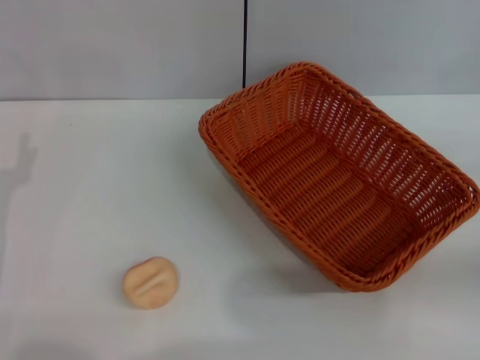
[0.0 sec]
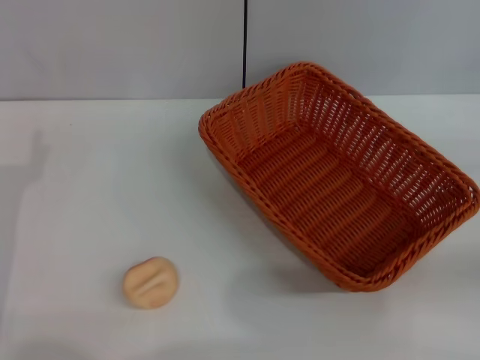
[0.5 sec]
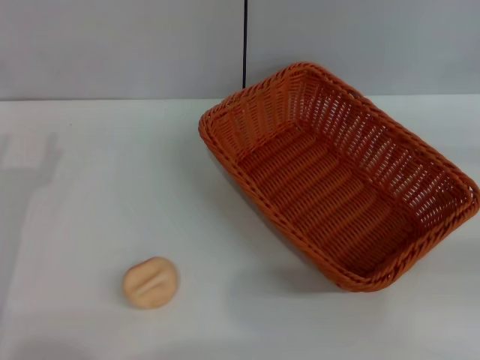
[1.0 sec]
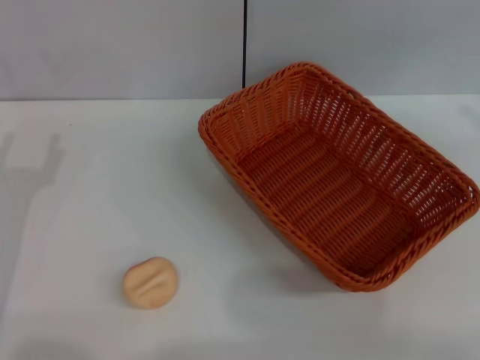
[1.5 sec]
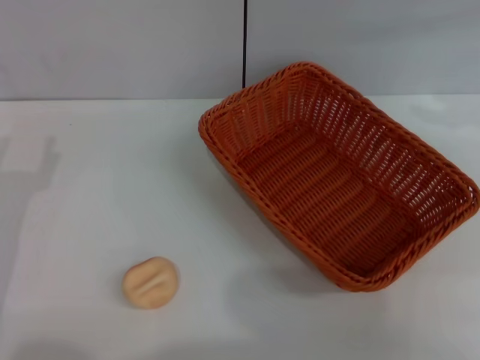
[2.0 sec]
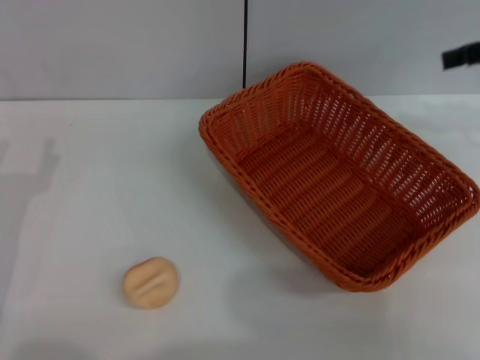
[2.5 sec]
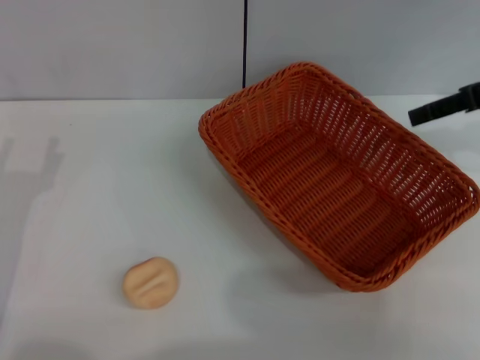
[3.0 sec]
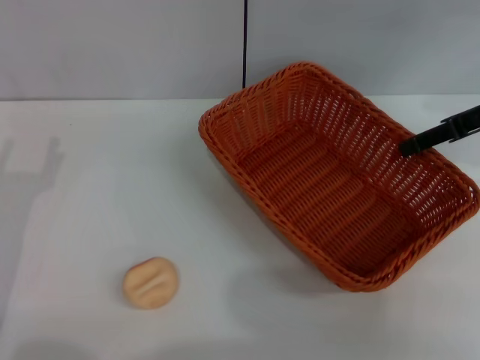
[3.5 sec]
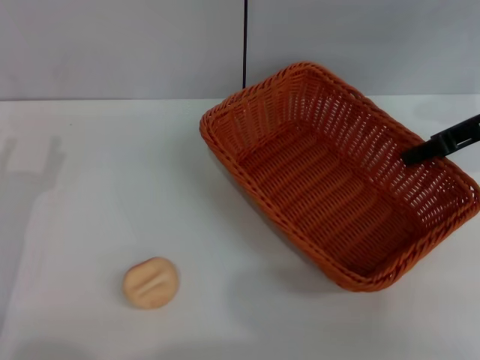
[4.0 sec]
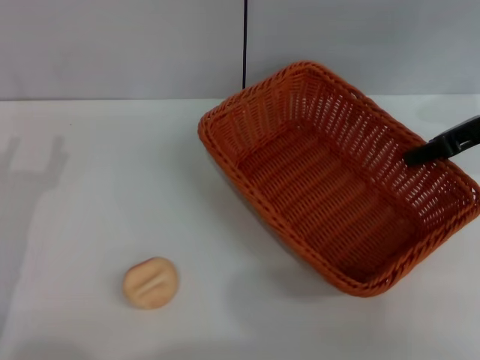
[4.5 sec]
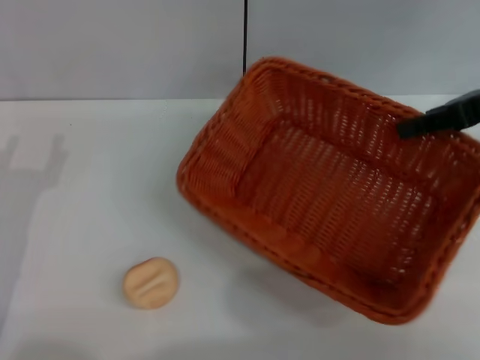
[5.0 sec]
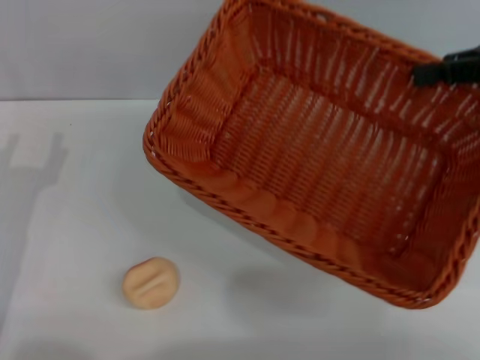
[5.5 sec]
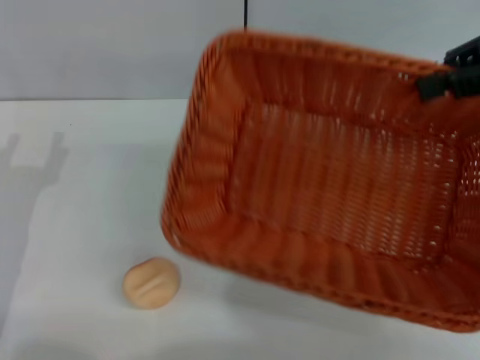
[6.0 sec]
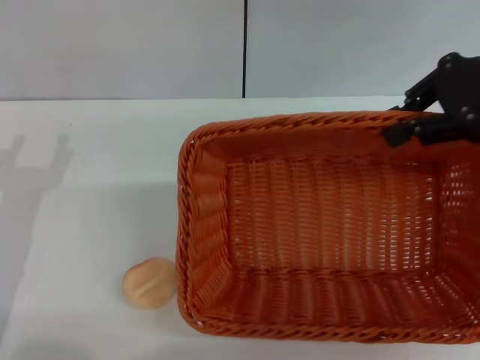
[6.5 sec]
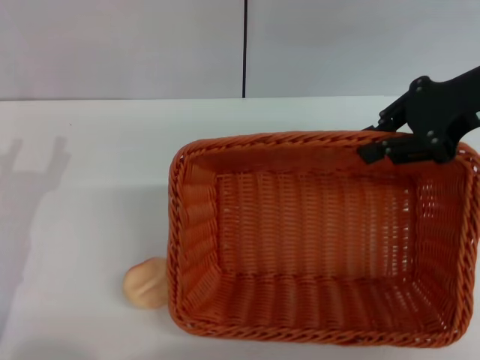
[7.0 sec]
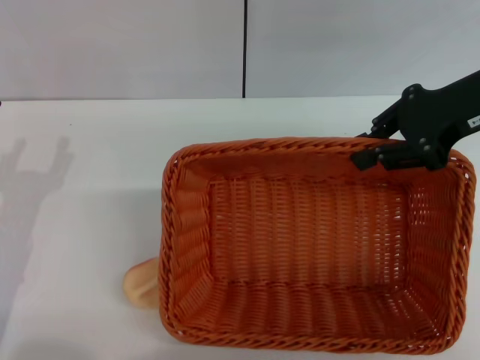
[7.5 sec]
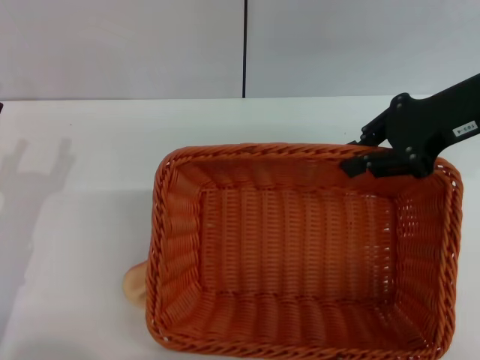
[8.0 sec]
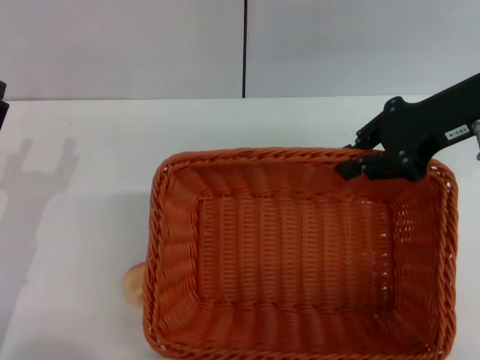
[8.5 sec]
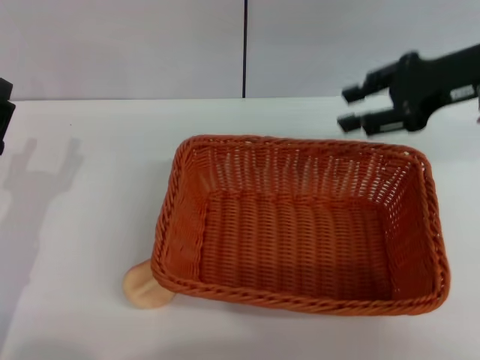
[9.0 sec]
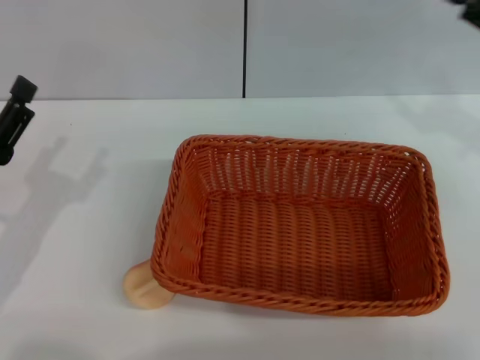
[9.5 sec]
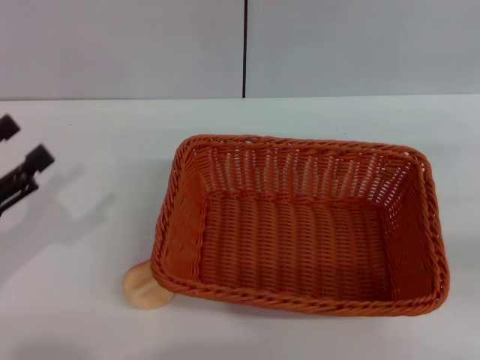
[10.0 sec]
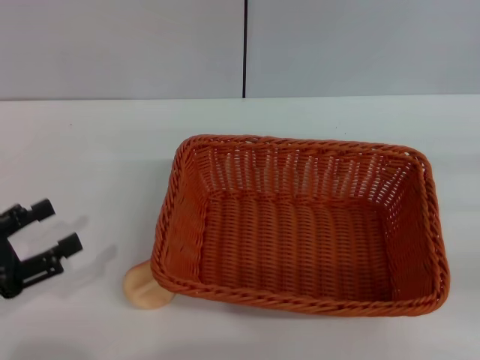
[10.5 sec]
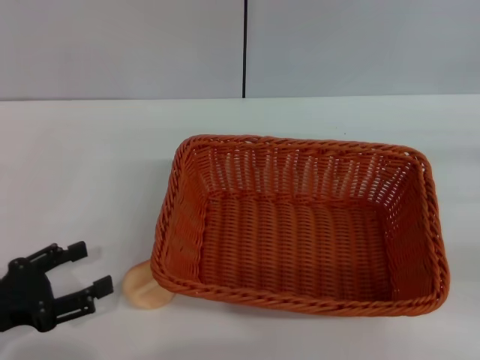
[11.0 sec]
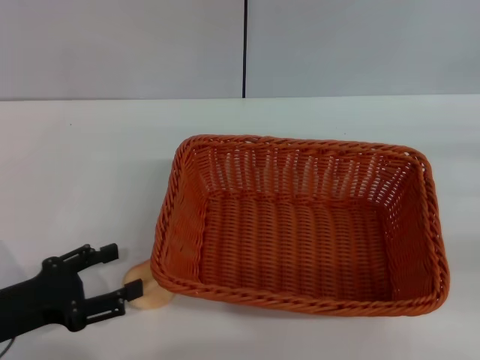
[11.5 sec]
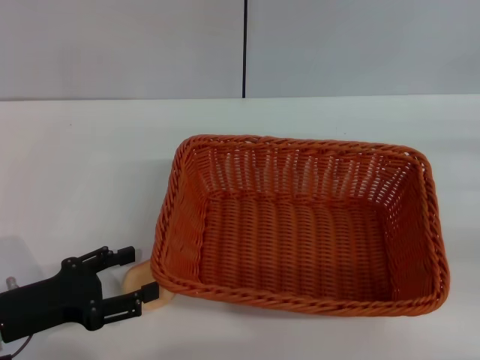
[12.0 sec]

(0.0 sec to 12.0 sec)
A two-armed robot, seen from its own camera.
Step, 0.0 sec - 9.0 sec: Move the basket to the center of view with the right gripper.
0.0 sec - 2.0 sec: The right gripper is displaced upward and forward by roughly 25 cm.
2.0 sec - 4.0 sec: The right gripper travels downward and to the left by some 15 cm, and closes its fingers.
4.0 sec - 6.0 sec: The right gripper shifts some 10 cm upward, and closes its fingers.
6.0 sec - 8.0 sec: The right gripper moves downward and to the left, about 10 cm.
8.0 sec - 10.0 sec: The right gripper heads to the right, backward and downward, covering some 20 cm, and opens. Meanwhile the left gripper goes some 5 cm to the left.
10.0 sec - 12.0 sec: The left gripper shifts approximately 5 cm downward.

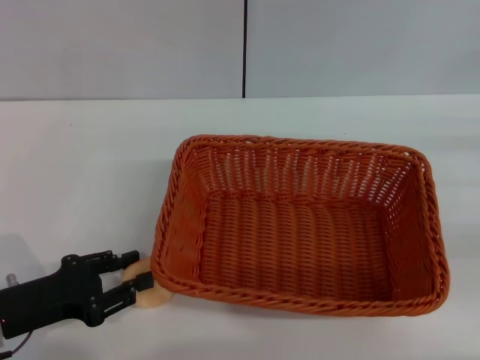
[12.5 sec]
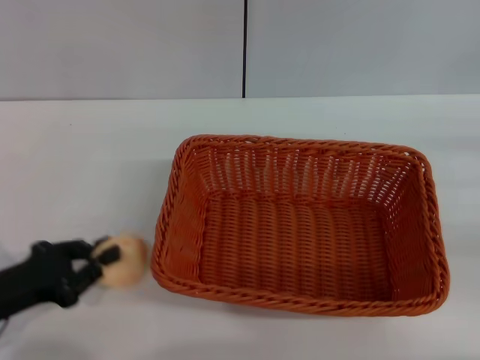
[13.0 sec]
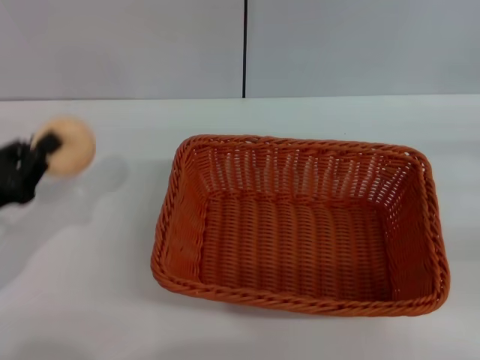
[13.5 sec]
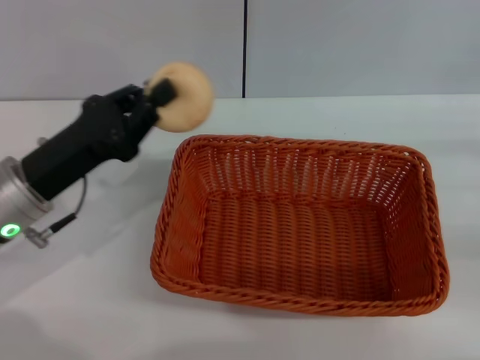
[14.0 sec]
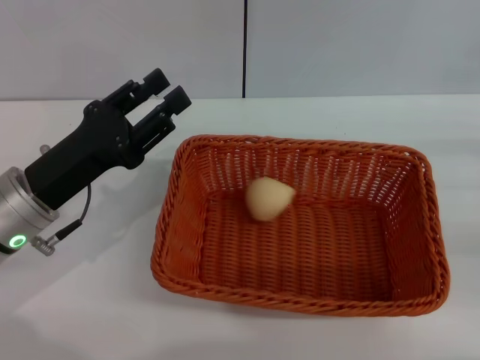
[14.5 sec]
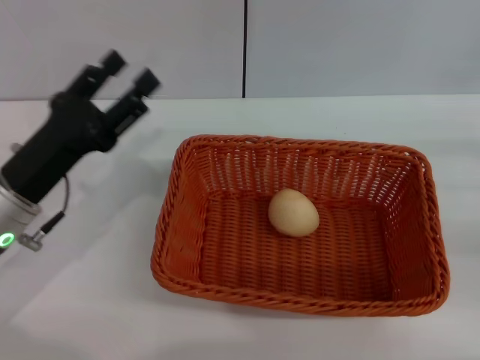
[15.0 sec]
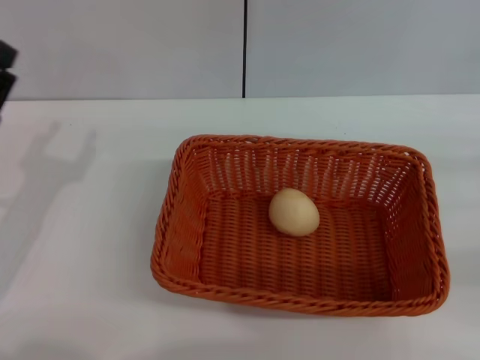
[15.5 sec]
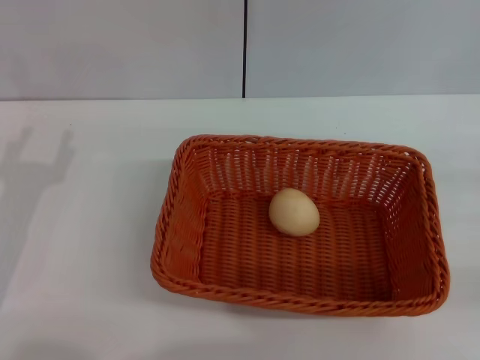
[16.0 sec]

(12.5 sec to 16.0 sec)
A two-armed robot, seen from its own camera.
Step, 13.5 sec - 14.5 sec: Place the egg yolk pastry into the basket with the left gripper.
12.5 sec - 14.5 sec: The left gripper shifts some 10 cm forward, to the right and upward, and closes its fingers.
14.5 sec - 16.0 sec: The right gripper changes place by approximately 5 cm; the left gripper is displaced to the left by approximately 5 cm, and opens up.

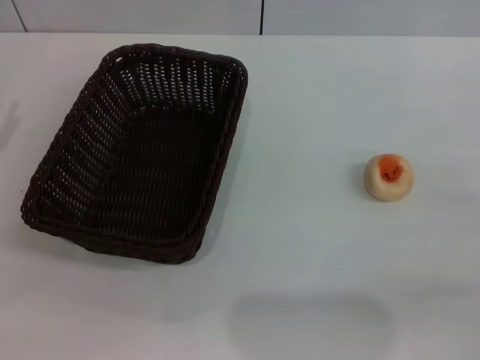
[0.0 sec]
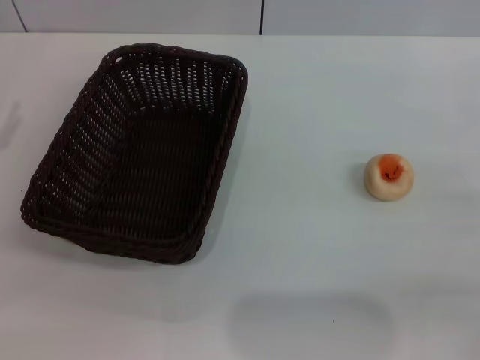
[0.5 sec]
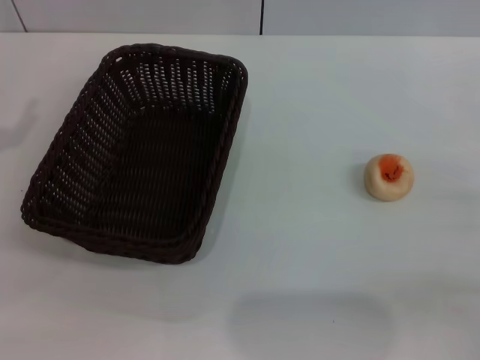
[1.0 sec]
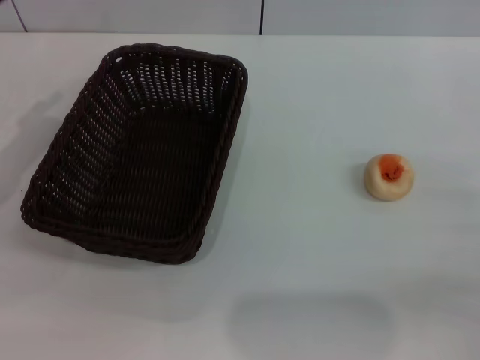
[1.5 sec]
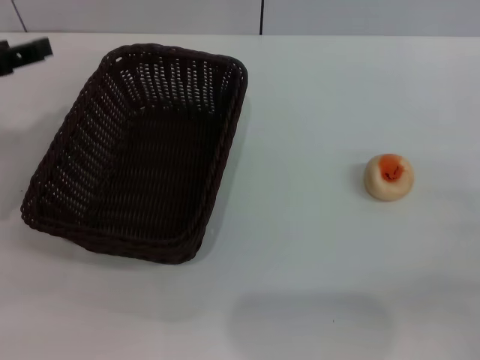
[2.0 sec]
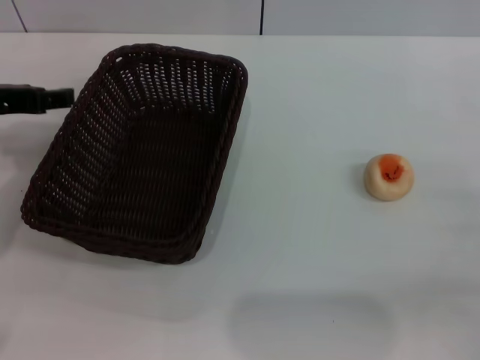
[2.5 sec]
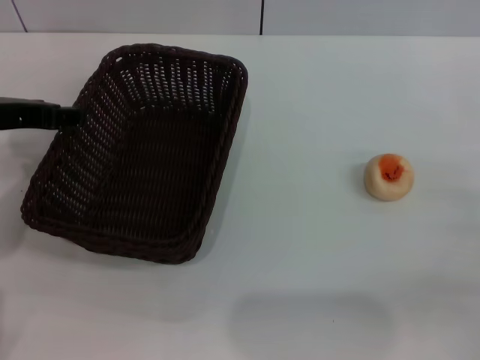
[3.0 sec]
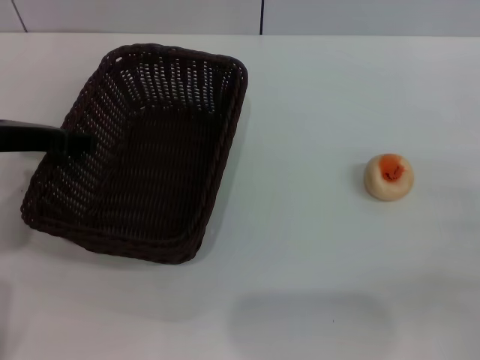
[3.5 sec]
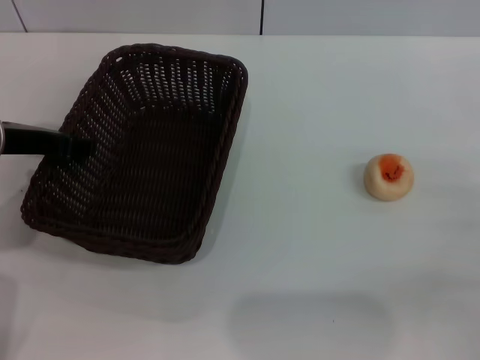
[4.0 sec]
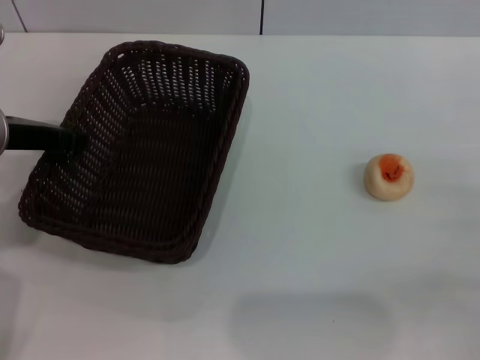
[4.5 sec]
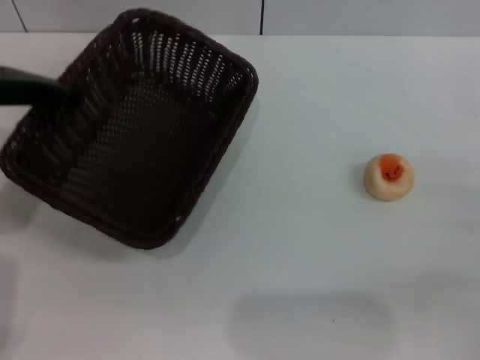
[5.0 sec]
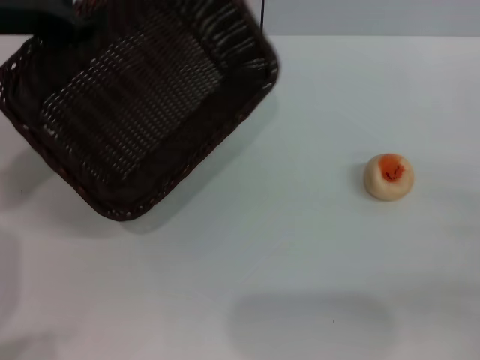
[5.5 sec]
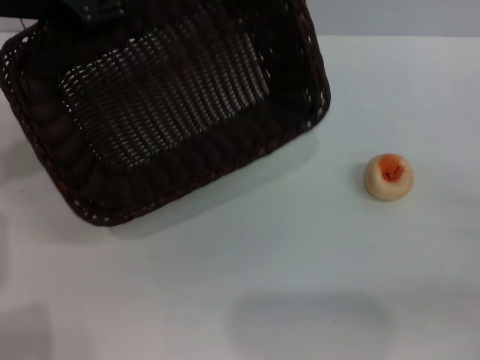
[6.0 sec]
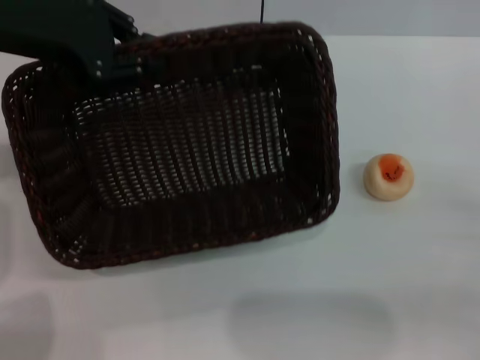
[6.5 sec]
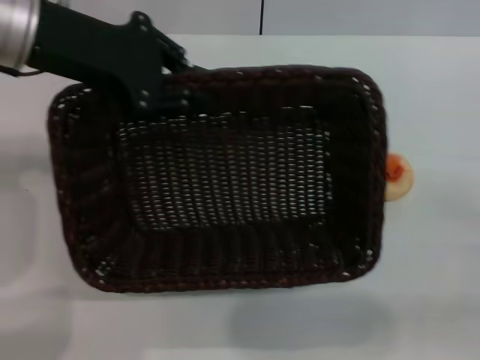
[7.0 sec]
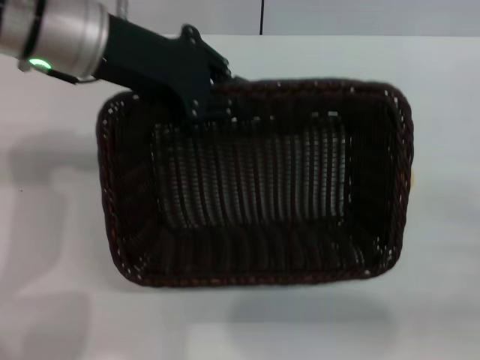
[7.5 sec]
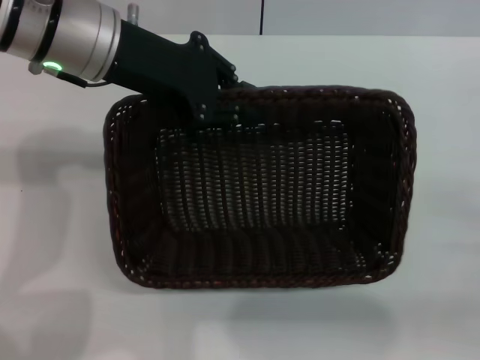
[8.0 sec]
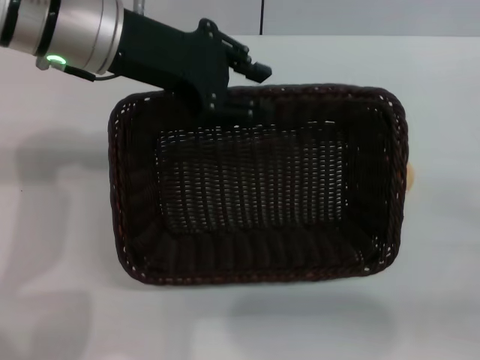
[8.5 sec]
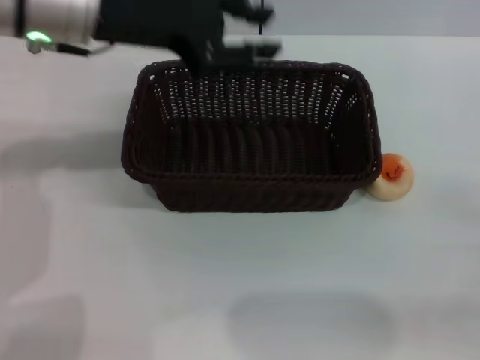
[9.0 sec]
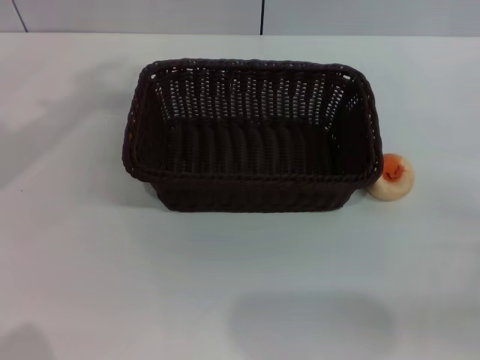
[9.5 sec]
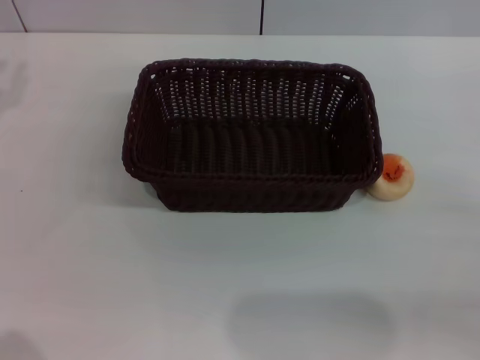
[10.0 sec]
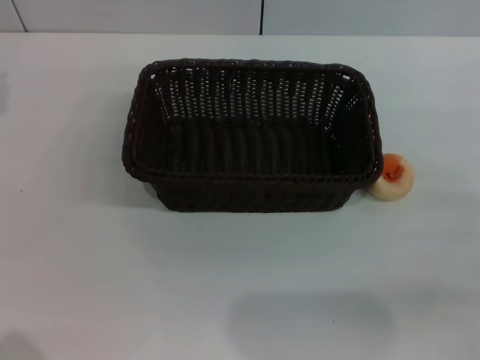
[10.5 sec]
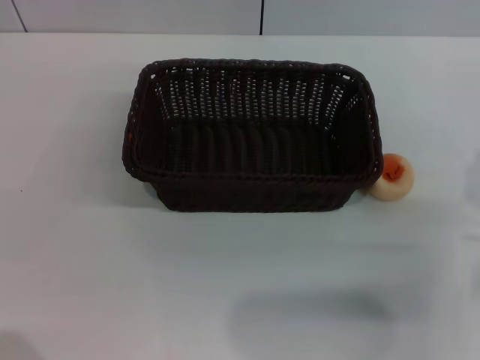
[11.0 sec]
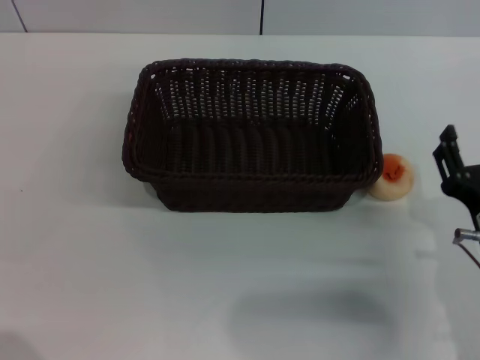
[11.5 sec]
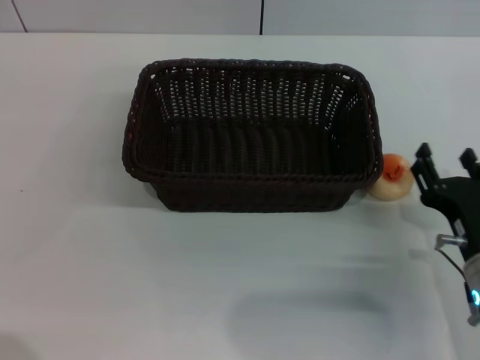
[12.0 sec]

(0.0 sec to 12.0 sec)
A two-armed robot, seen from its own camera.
Step, 0.0 sec - 8.5 sec: Move the basket to the center of view with the left gripper.
0.0 sec - 2.0 sec: The left gripper is displaced to the right and upward by some 10 cm.
2.0 sec - 4.0 sec: The left gripper goes about 5 cm to the right.
4.0 sec - 6.0 sec: The left gripper moves upward, roughly 10 cm, and closes its fingers.
6.0 sec - 8.0 sec: The left gripper is displaced to the right by roughly 10 cm.
8.0 sec - 10.0 sec: The left gripper goes about 20 cm to the left, and opens its fingers.
10.0 sec - 12.0 sec: The right gripper goes about 15 cm to the left and downward.
